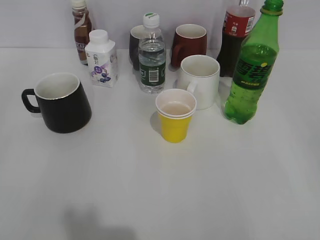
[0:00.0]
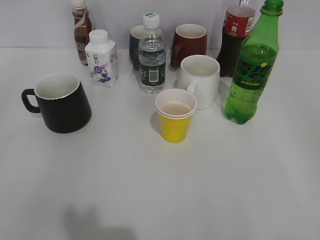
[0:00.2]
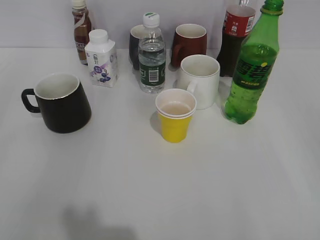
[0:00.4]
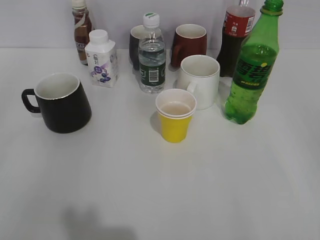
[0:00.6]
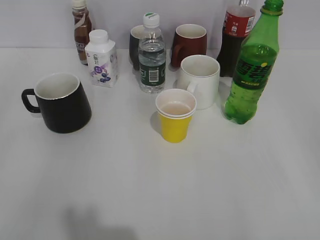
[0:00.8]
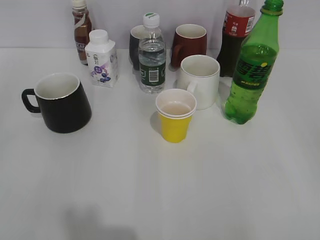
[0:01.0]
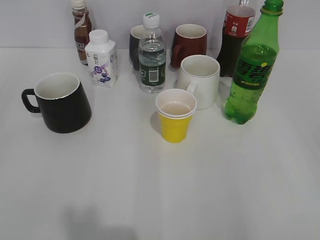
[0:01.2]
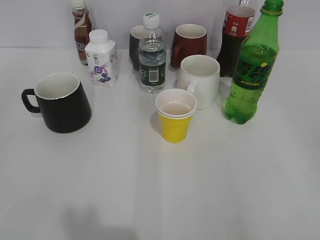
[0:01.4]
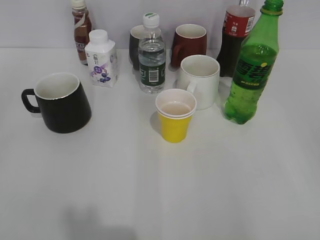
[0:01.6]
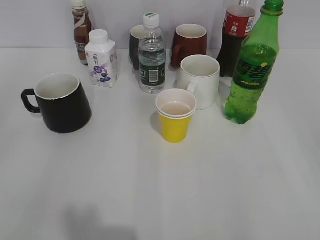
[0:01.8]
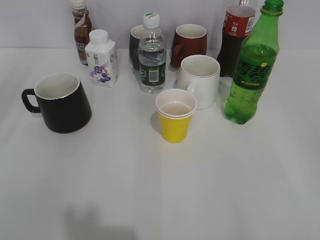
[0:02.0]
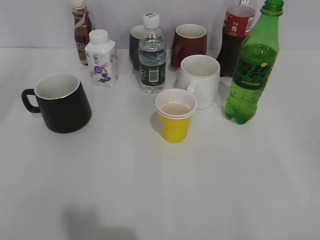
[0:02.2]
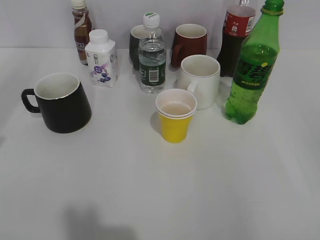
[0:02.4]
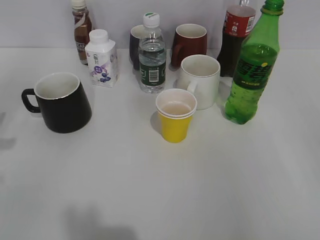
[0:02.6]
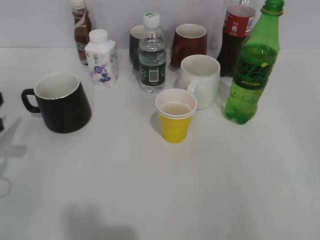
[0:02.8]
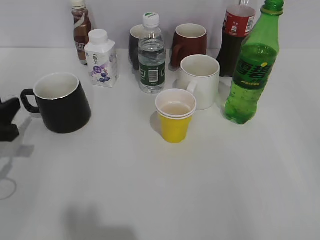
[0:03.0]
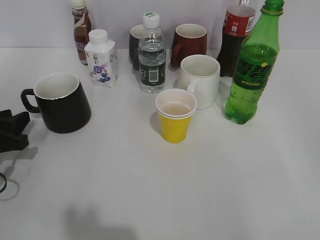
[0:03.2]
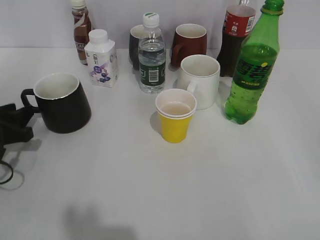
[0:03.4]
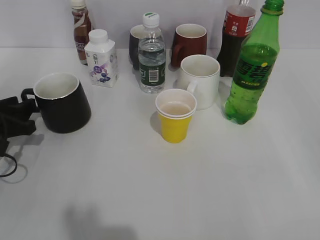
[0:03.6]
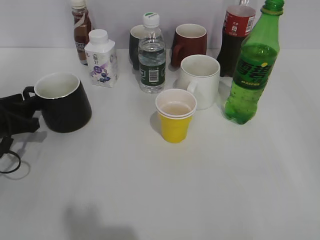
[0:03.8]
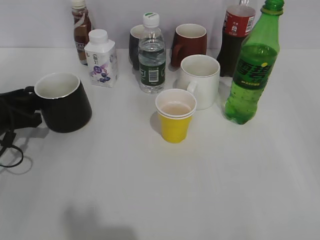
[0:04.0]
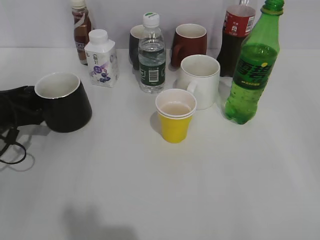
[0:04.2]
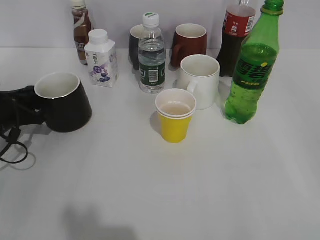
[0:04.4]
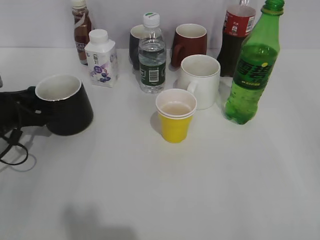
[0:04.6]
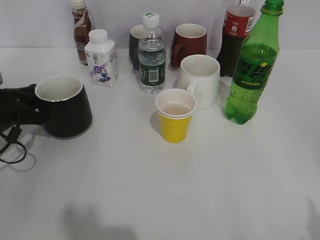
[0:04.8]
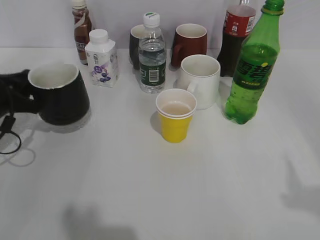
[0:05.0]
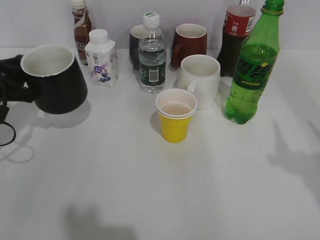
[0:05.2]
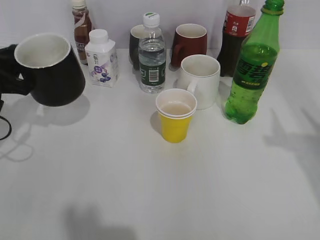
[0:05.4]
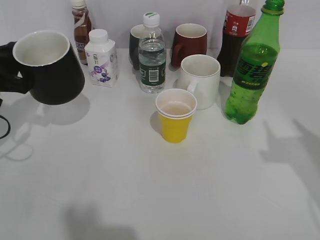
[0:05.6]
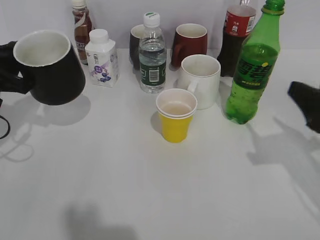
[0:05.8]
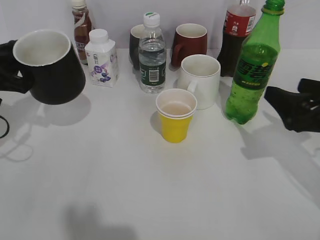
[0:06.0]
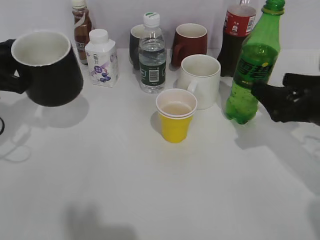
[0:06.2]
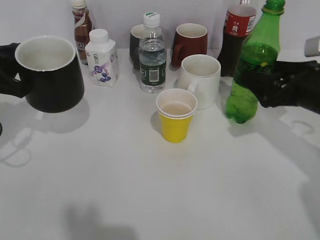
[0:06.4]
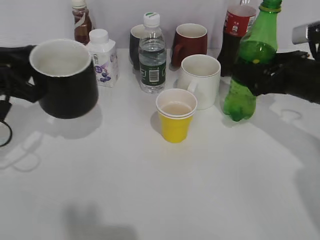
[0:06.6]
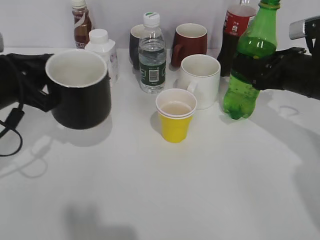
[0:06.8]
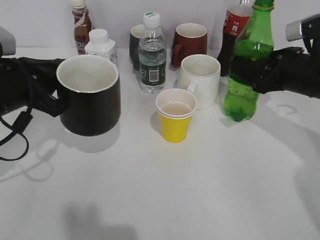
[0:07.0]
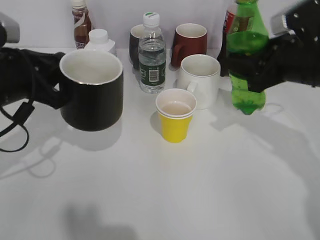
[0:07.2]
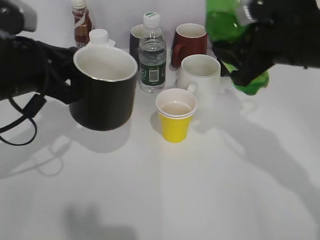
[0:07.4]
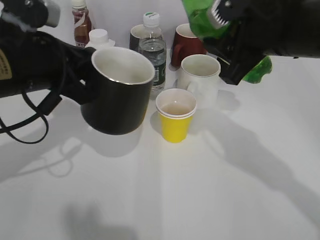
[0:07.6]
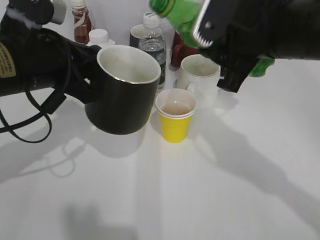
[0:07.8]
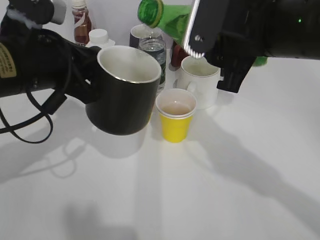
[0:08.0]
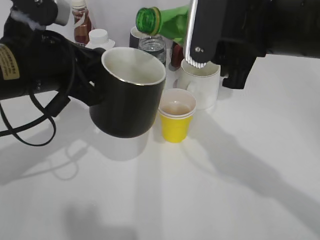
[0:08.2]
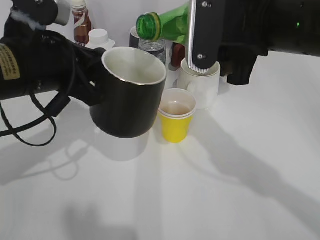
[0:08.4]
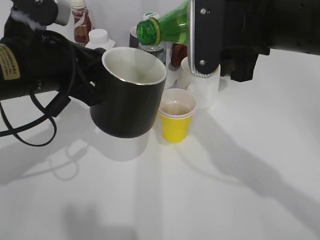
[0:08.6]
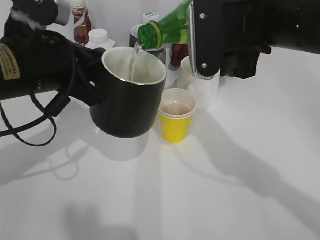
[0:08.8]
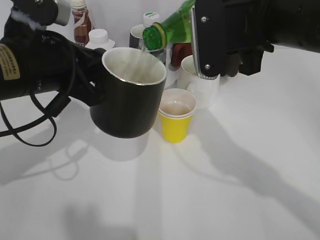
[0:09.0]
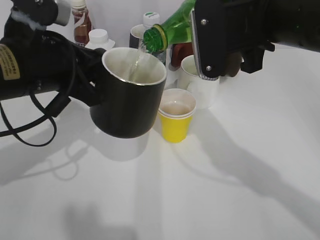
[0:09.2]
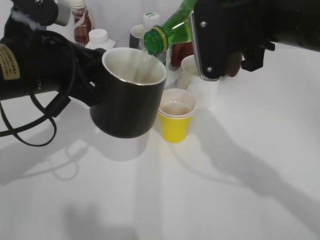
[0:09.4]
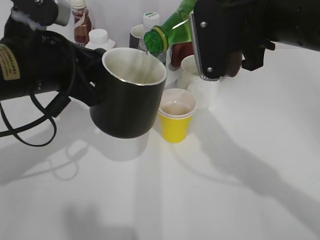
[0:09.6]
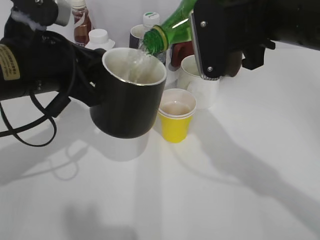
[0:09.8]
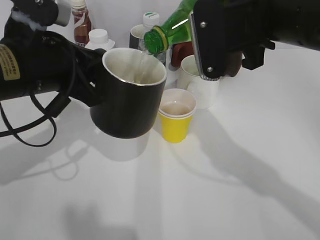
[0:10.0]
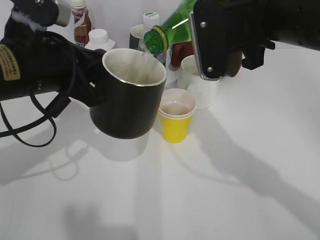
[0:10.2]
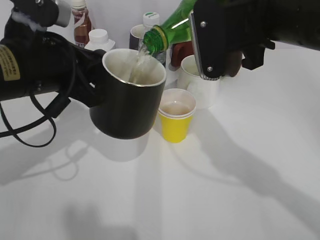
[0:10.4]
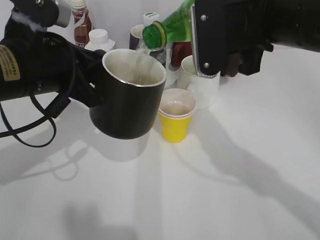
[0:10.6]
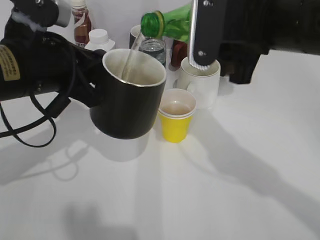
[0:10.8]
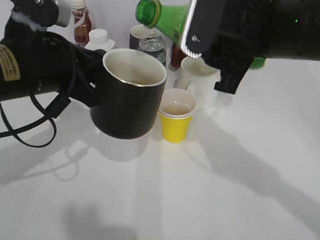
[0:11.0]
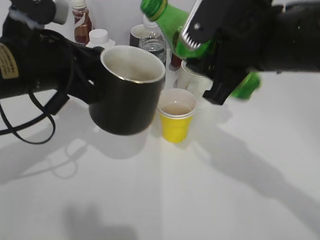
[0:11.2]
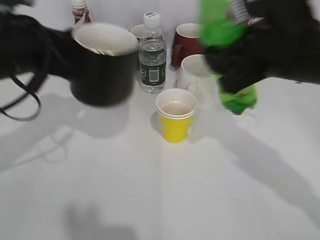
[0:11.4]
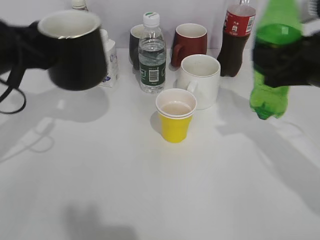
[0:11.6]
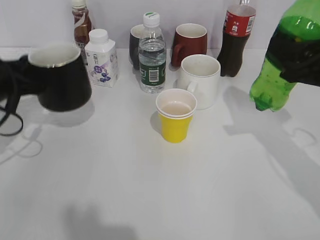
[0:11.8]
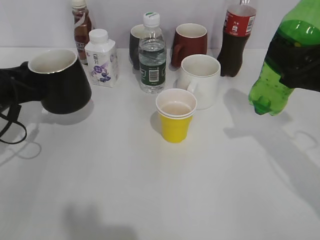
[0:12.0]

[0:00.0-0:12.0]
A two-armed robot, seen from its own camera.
Step, 1.6 to 4.4 s: Grasp the black cup with left gripper.
Step, 4.8 to 6.8 s: Grasp the bottle with sprite with right gripper.
Step, 7.0 to 11.0 s: Pour the sprite from bottle to cup with right gripper.
1.6 to 3.0 s: The left gripper shifts some 25 cm forward and downward.
3.0 to 4.4 s: The left gripper heads forward, covering some 5 cm, and closes up.
4.4 to 6.0 s: The left gripper shifts some 10 cm upward, while the right gripper goes some 25 cm forward and downward.
6.0 to 7.6 s: The right gripper moves to the left, upward and forward, approximately 15 cm, and closes up. Meanwhile the left gripper goes about 15 cm to the right and upward.
9.0 to 10.4 s: The grippers move only a little.
10.4 to 12.0 s: The left gripper is displaced to the left, downward and forward by about 15 cm; the right gripper shifts roughly 15 cm to the right and downward.

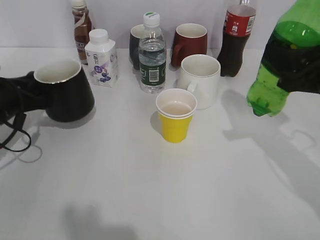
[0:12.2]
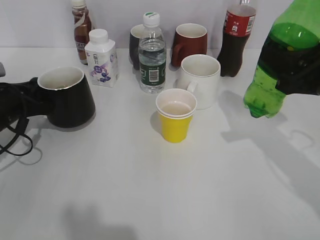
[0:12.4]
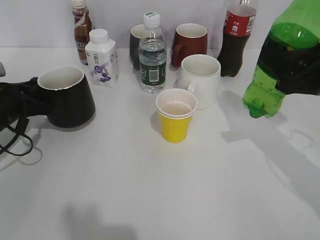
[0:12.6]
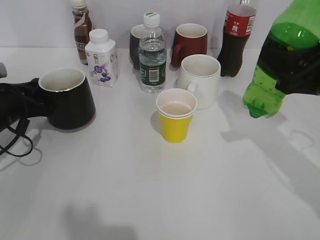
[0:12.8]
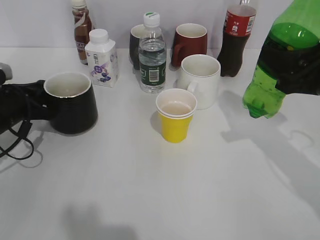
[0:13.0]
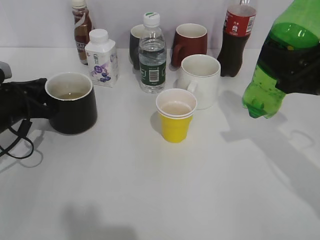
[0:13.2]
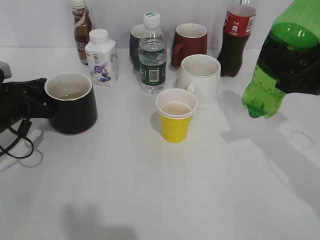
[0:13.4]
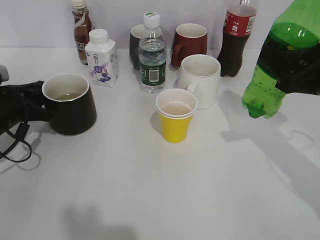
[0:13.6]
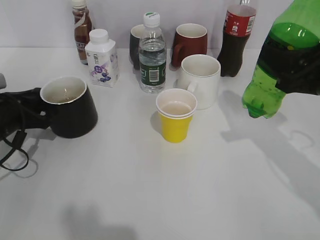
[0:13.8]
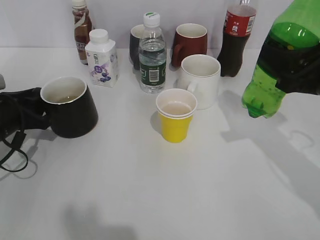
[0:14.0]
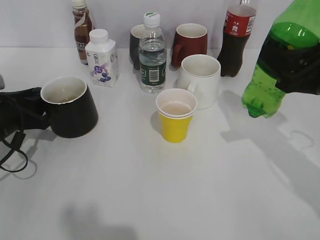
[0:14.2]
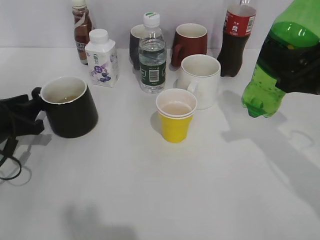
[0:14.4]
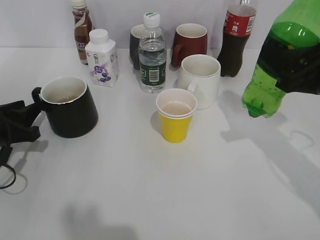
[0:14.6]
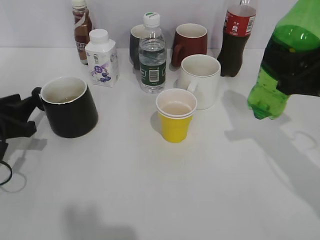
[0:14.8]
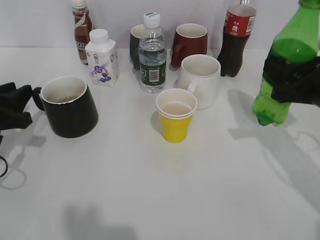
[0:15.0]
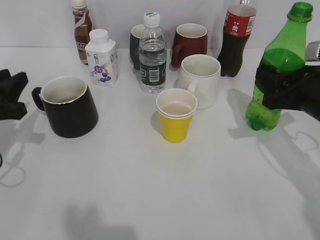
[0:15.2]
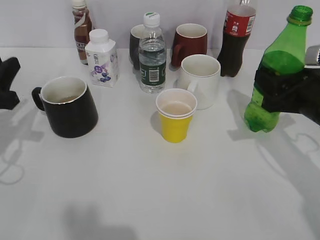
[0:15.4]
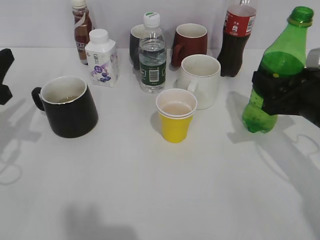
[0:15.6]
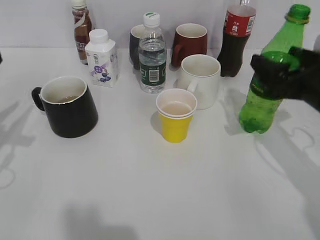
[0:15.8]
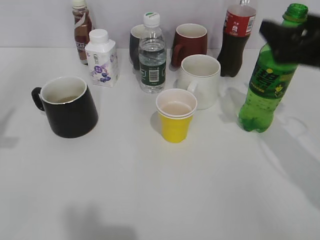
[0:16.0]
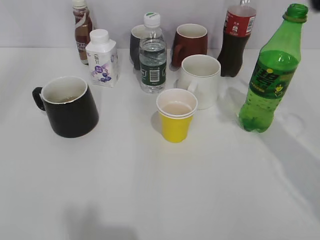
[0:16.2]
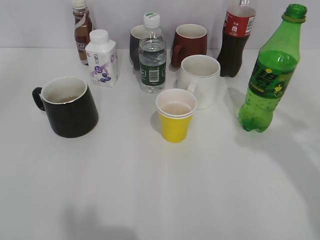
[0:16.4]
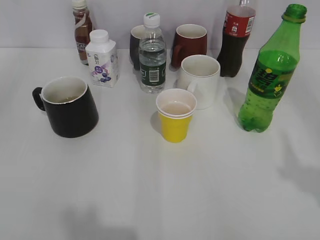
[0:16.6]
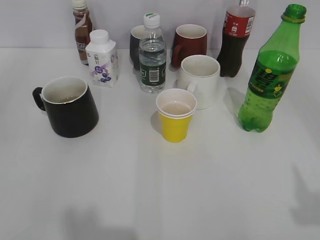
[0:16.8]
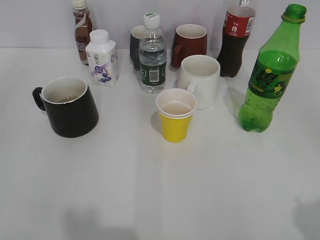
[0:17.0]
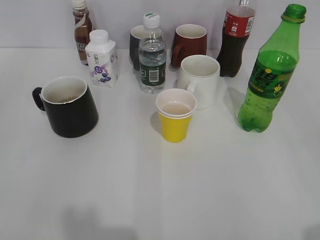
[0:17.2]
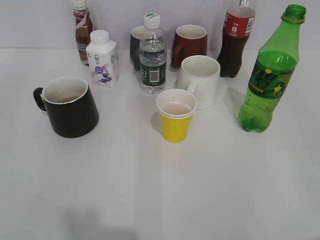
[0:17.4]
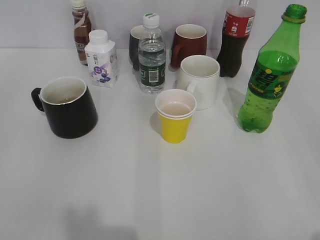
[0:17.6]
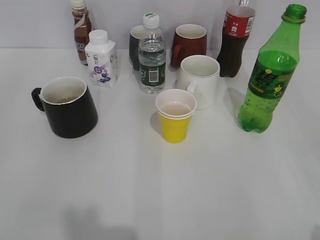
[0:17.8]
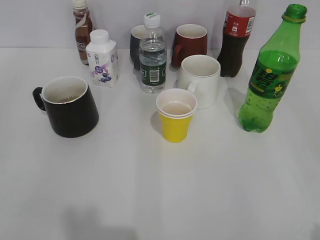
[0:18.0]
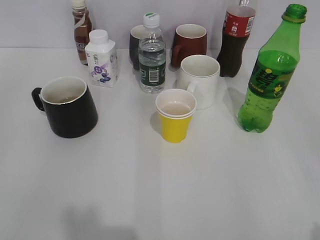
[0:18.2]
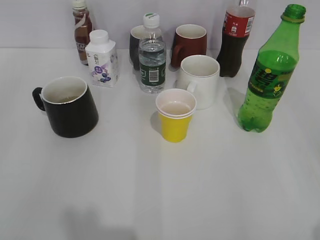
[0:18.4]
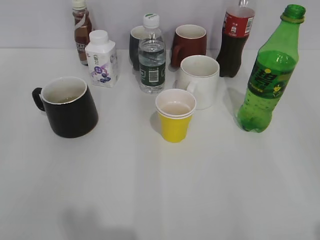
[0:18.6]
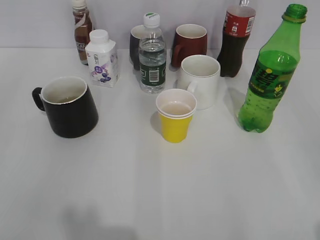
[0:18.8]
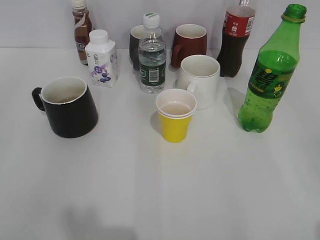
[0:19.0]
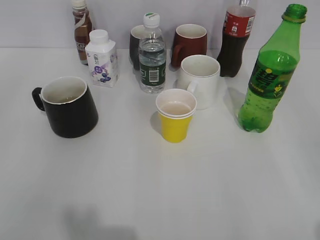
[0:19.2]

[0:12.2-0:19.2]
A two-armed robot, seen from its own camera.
Step, 12.2 to 14.4 s: Place the black cup on the table with left gripper.
Step, 14.8 to 16.0 s: Place the sprite bottle on the table with right gripper.
12.2 to 13.6 s: There are only small adjustments of the grippers.
13.6 to 15.0 s: The left gripper is displaced backward by about 5 cm, and opens up.
15.0 to 16.4 s: The right gripper is displaced upward and backward by about 20 cm, and opens. Meanwhile the left gripper goes some 25 cm upward and backward.

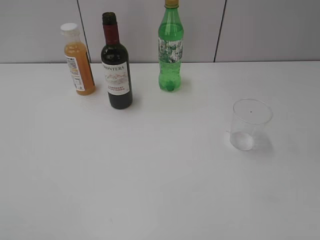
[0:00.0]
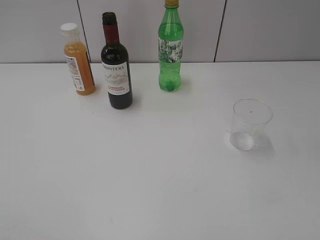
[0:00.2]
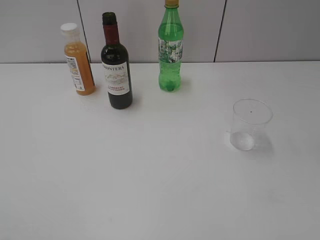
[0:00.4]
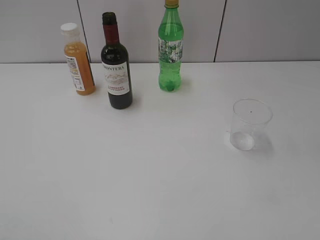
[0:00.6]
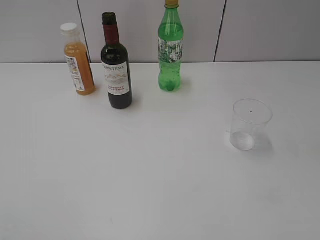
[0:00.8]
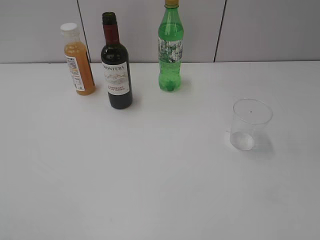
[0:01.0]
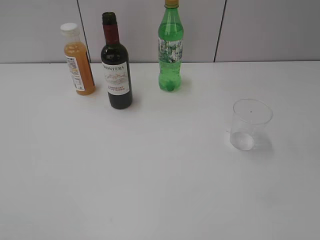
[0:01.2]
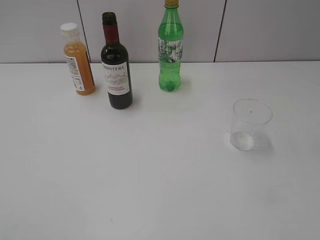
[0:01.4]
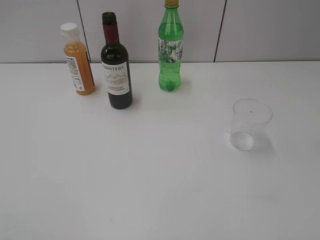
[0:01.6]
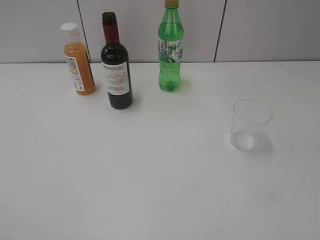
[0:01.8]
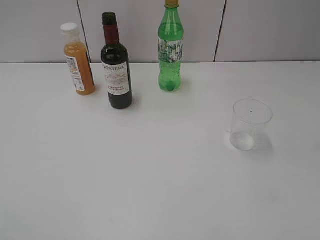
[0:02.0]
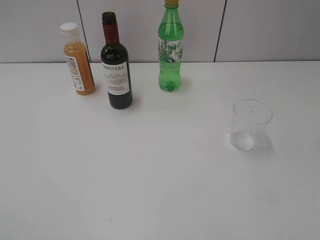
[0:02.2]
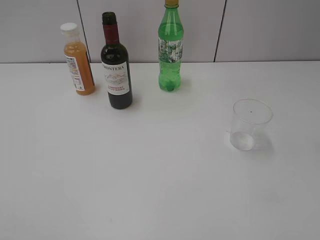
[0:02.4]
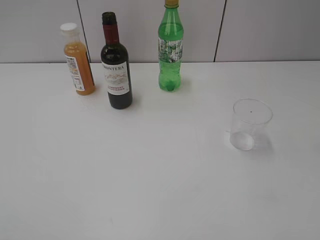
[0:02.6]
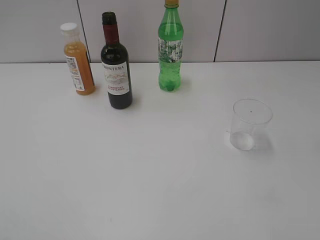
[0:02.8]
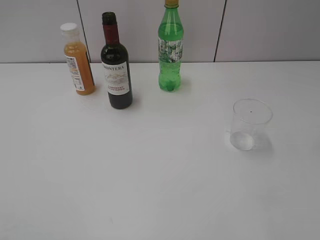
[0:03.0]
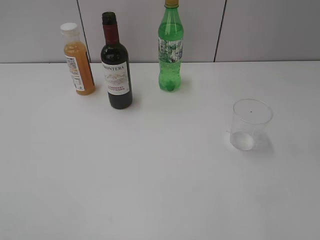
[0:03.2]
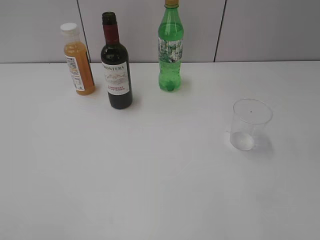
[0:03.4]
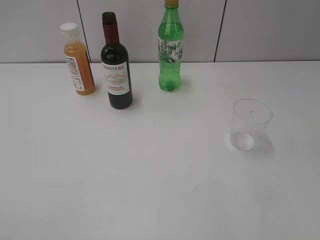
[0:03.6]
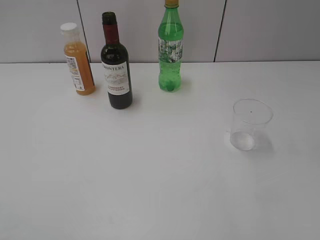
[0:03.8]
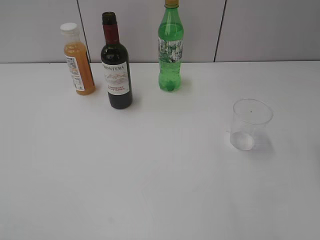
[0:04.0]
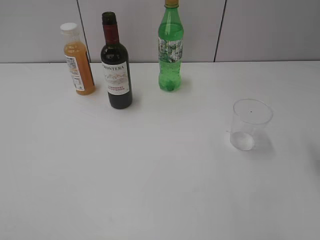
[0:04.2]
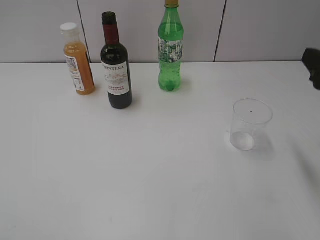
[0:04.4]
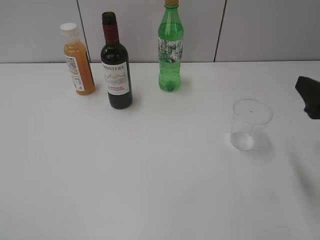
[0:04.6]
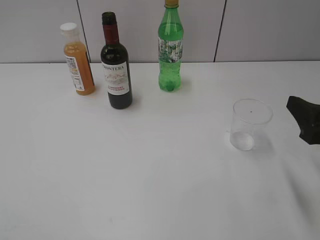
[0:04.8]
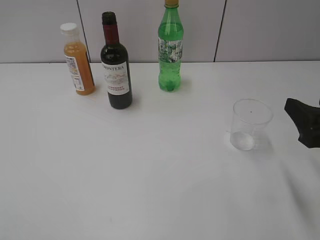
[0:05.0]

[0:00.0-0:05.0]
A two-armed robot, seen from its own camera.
3.4 to 5.0 s: The right gripper shifts roughly 15 cm downward and forward.
